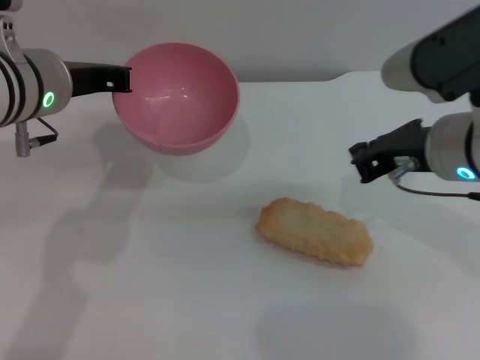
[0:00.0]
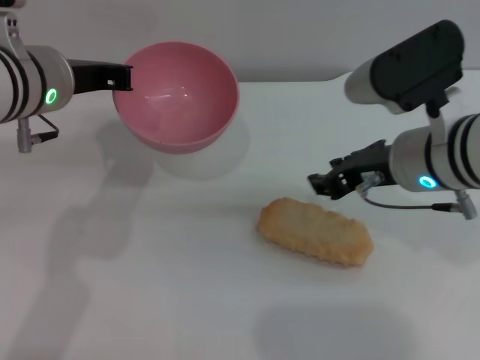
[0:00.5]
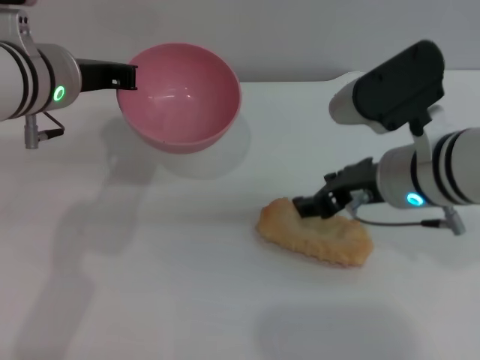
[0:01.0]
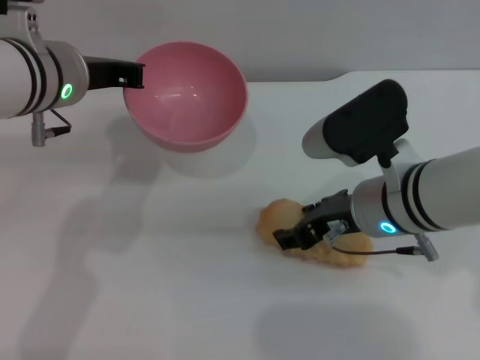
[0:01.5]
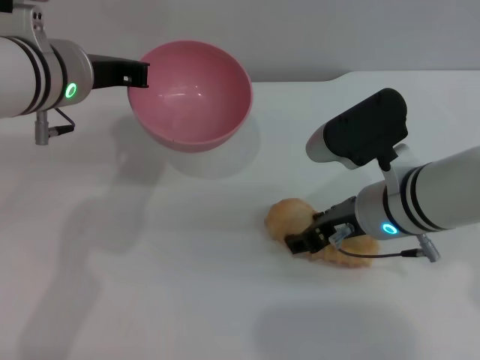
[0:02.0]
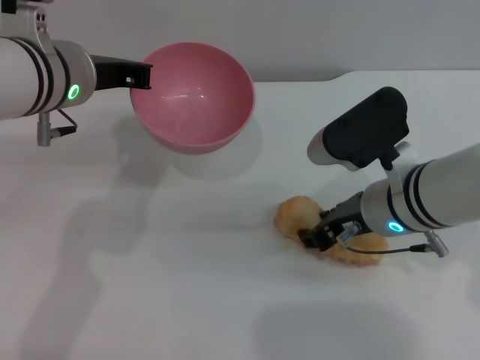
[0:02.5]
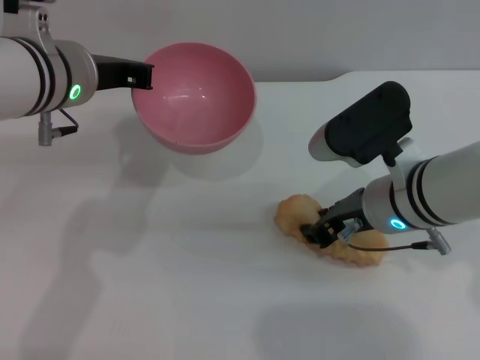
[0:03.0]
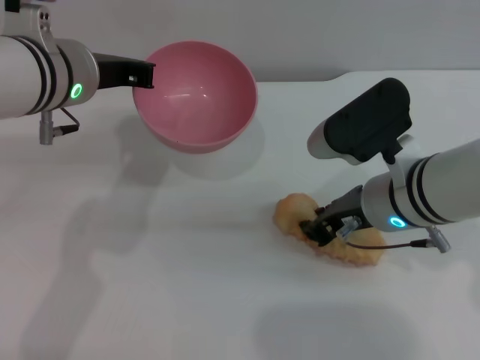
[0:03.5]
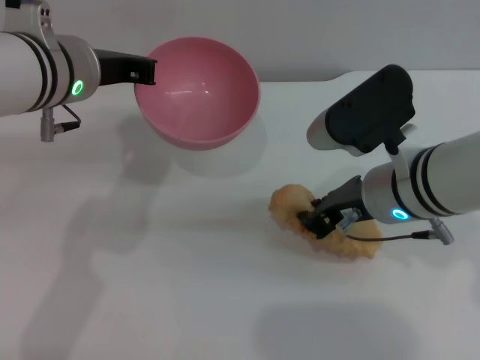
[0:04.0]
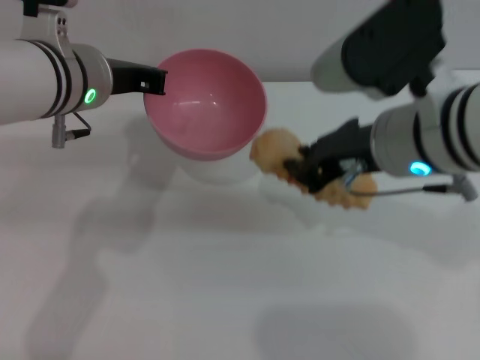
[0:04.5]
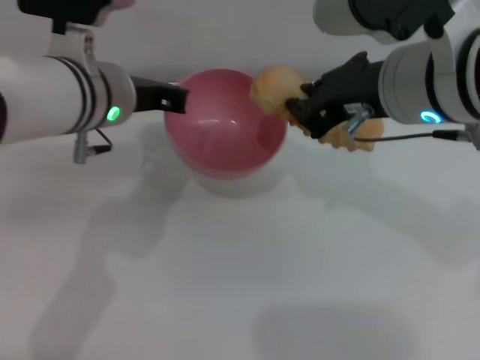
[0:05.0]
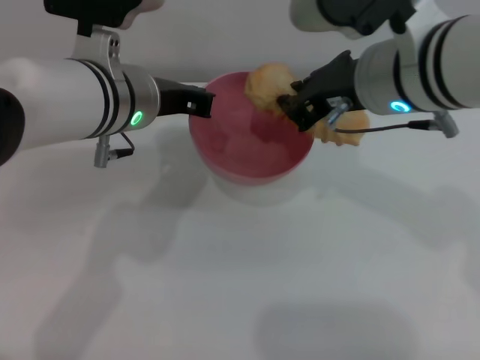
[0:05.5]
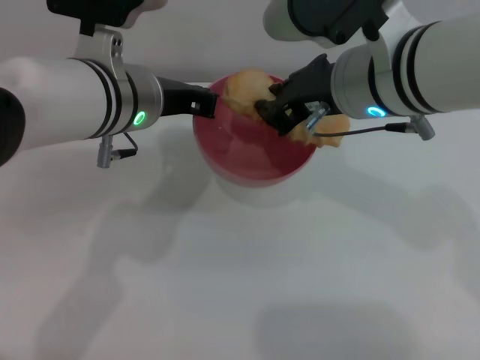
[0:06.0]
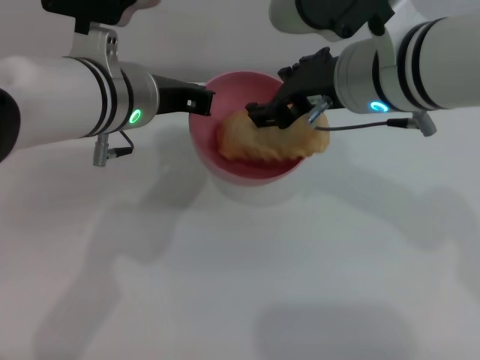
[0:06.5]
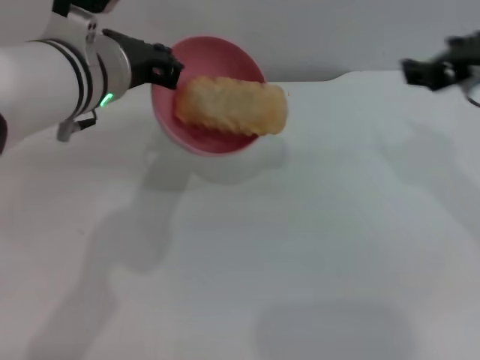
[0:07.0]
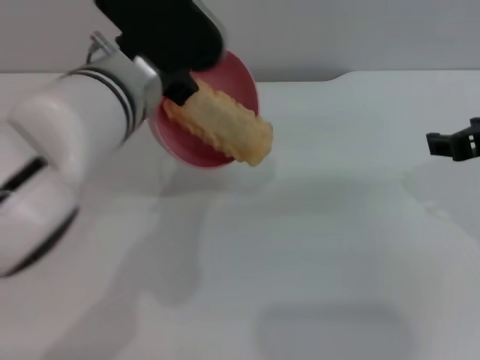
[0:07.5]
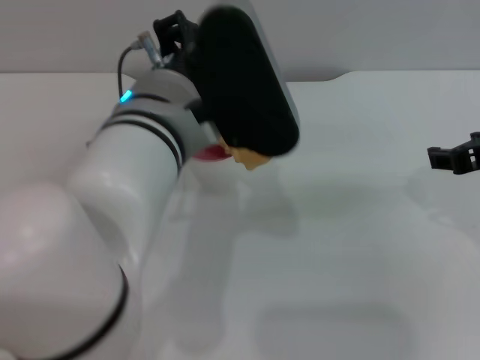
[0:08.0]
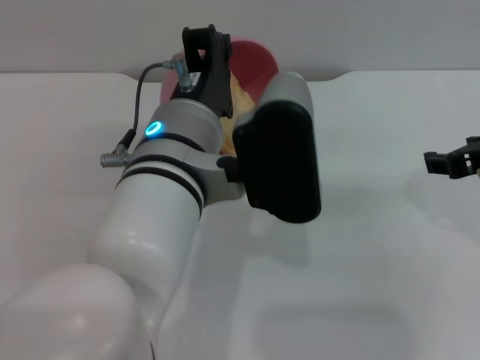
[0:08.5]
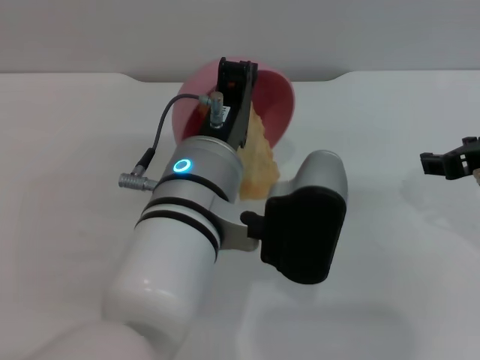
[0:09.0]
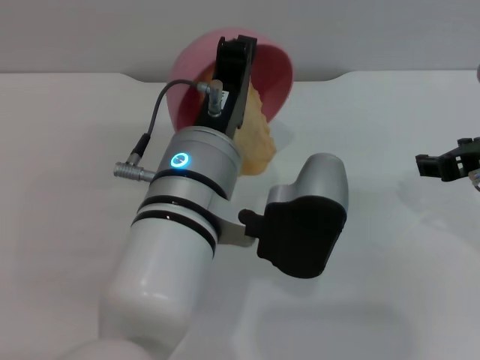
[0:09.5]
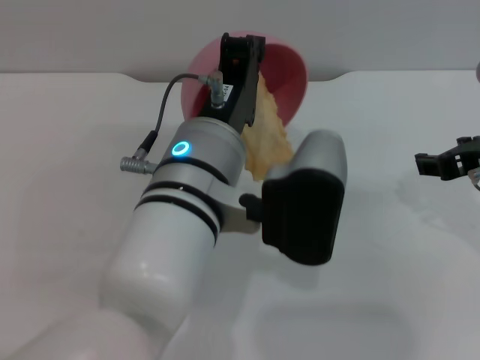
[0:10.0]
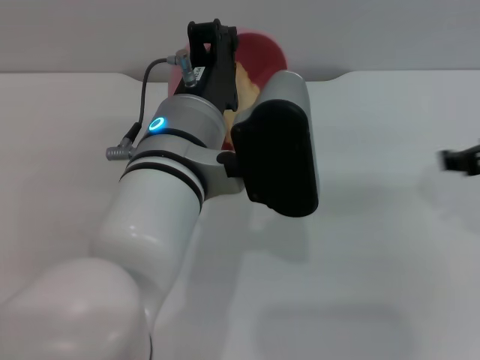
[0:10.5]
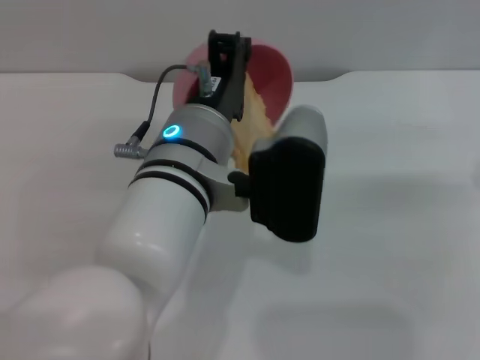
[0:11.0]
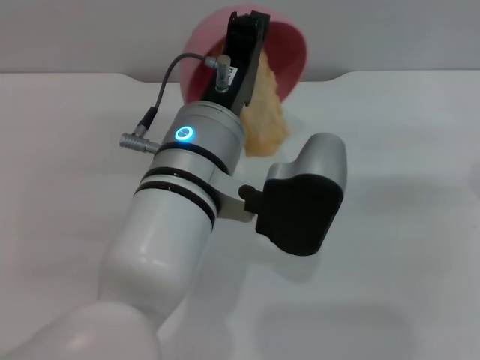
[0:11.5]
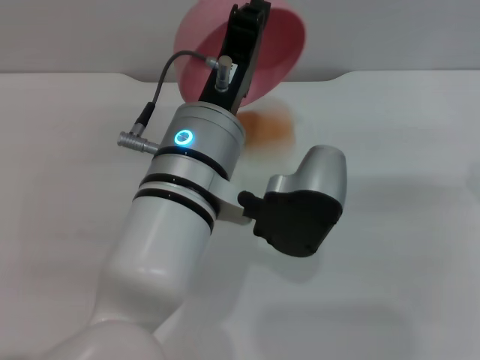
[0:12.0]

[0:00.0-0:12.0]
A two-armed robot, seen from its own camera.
Task of the whole recording: put the bread into the pink bowl and pour it out repeatedly.
Step, 0:00.0 to 0:04.5: Pick up the bread with the right gripper.
Step, 0:05.0 to 0:06.5: Place the bread into the bowl.
0:00.0 to 0:02.0: The right gripper heads downward, covering some 10 cm, and opens its fingers.
0:02.0 to 0:04.0: The right gripper closes.
0:04.0 to 0:06.0: The right gripper moves upward, about 10 cm. The left gripper ends up some 5 cm from where it was.
0:06.0 to 0:08.0: The left gripper is displaced backward by roughly 5 cm, while the right gripper travels to the right by about 15 cm, and opens its fingers.
0:08.0 to 0:10.0: The left gripper shifts by about 5 cm.
0:10.0 to 0:12.0: The right gripper goes some 5 cm to the right.

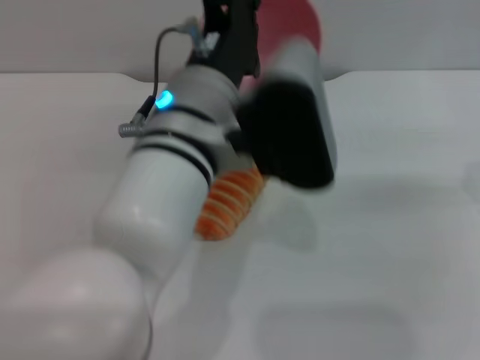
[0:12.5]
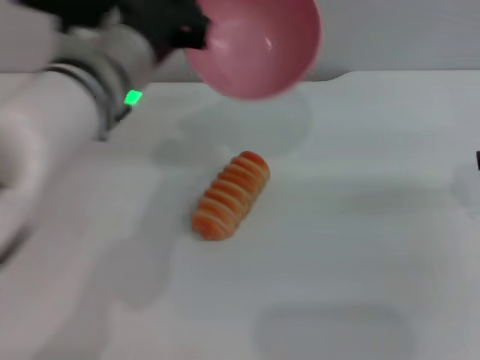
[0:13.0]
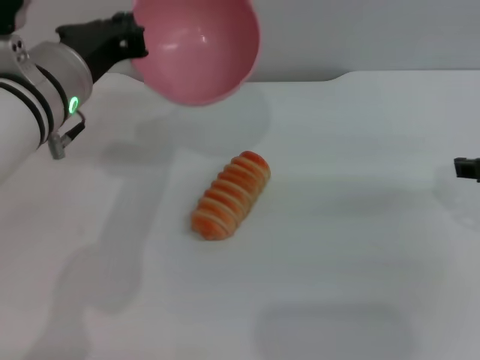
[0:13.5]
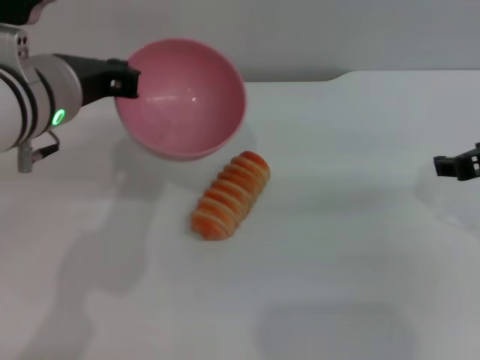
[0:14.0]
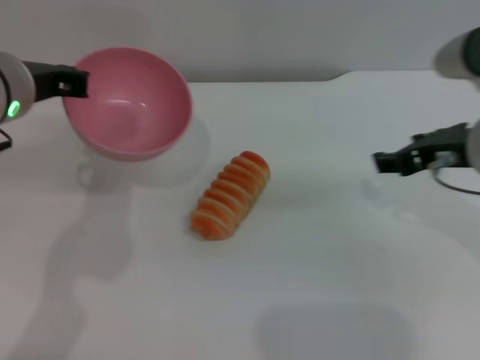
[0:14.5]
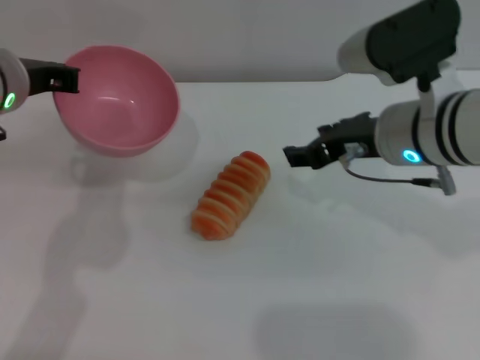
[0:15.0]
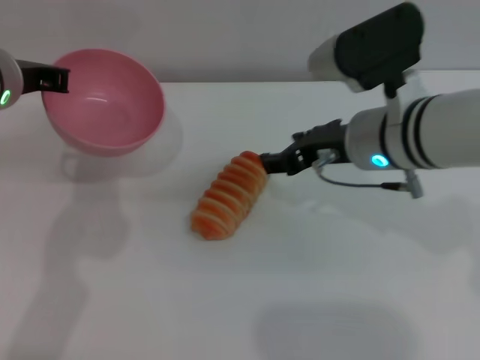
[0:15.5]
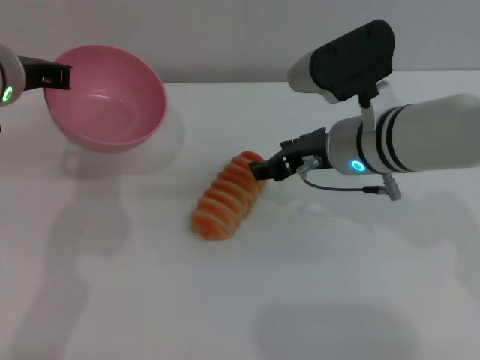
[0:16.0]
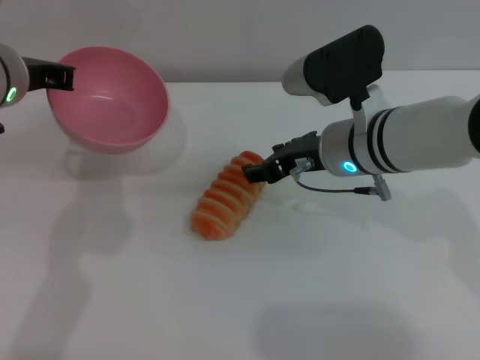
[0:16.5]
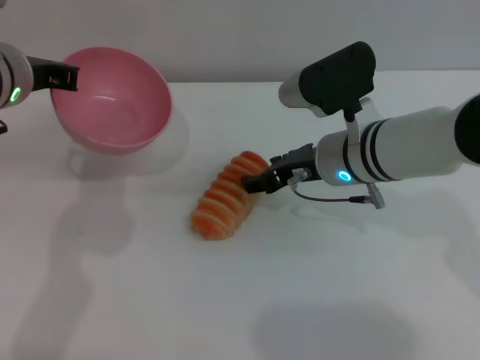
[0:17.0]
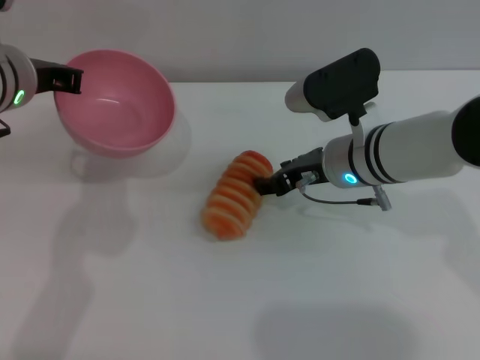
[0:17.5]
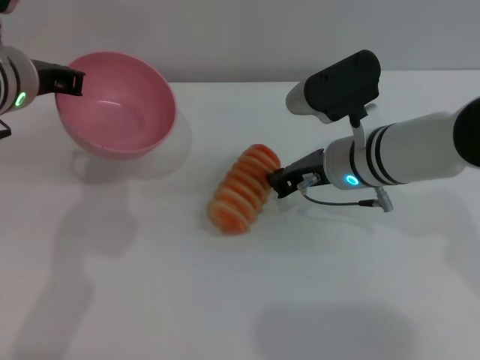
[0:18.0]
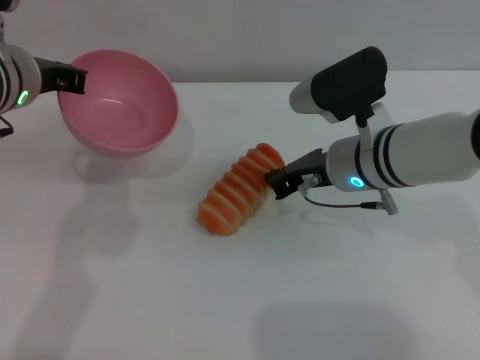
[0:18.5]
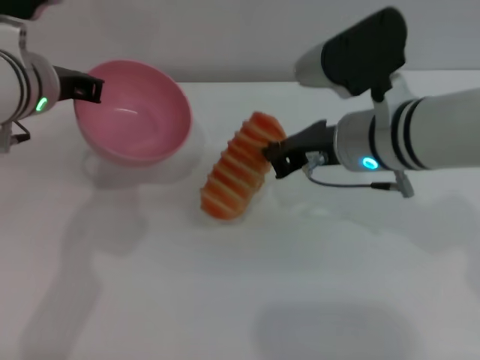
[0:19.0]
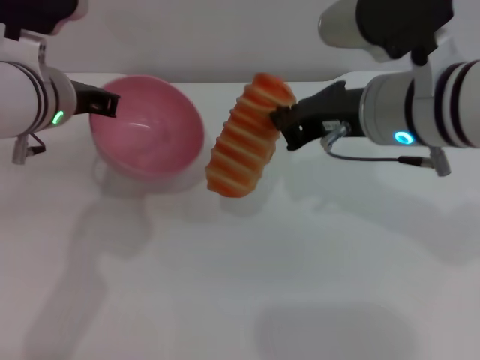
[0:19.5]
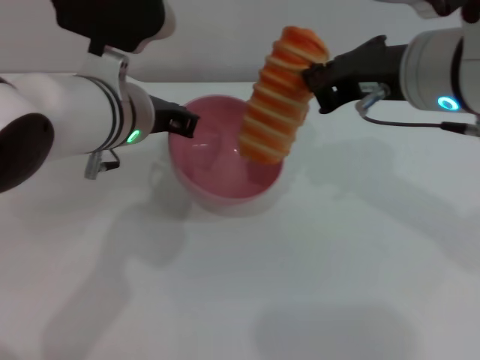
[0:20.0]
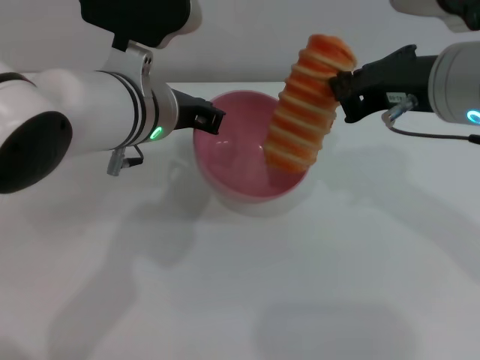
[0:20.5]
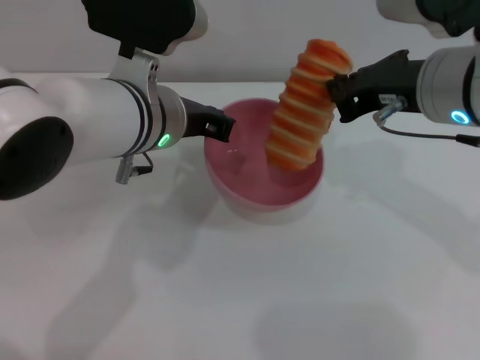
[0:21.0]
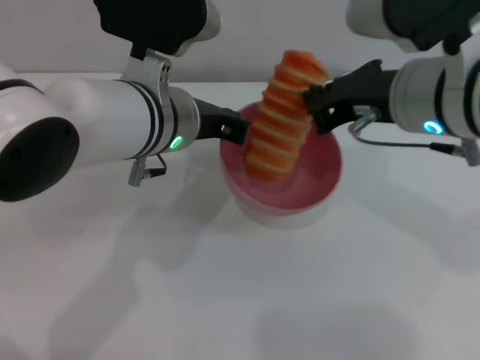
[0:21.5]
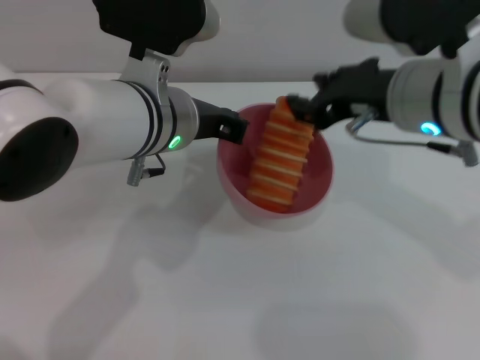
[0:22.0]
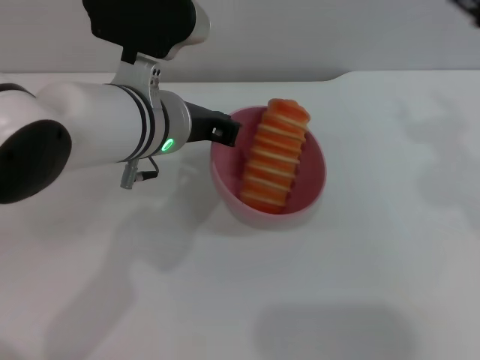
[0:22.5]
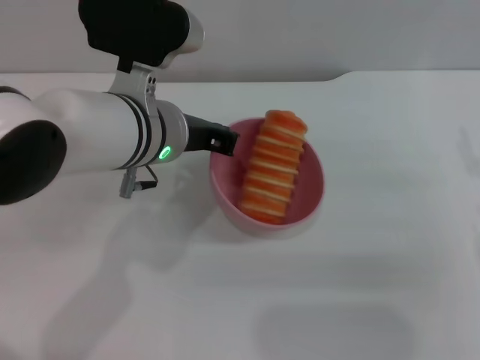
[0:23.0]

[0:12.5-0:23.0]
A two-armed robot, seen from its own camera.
Task of the whole recording: put the bread into the pink bowl and pour it out repeatedly.
Step, 0:13.0 to 0:19.0: Pick up the bread with the right gripper.
Step, 0:19.5 to 0:22.0: Place the bread into the bowl.
0:12.5 to 0:14.5: The right gripper heads to the left, covering approximately 10 cm. Meanwhile the left gripper heads to the left, covering some 15 cm.
0:14.5 to 0:16.5: The right gripper moves to the left and downward, approximately 10 cm.
0:16.5 to 0:19.0: The right gripper closes its fingers.
0:19.0 to 0:21.0: The right gripper is displaced upward by approximately 10 cm; the left gripper shifts about 10 cm to the right.
0:21.0 to 0:23.0: The right gripper heads to the right, downward and backward, covering some 20 cm, and opens its fingers.

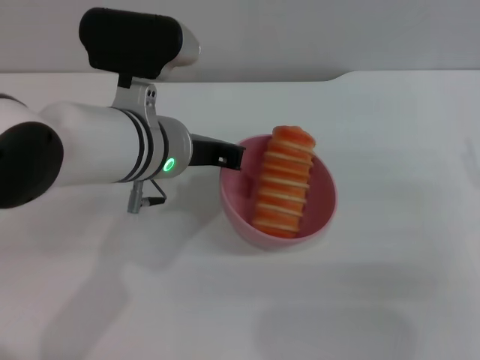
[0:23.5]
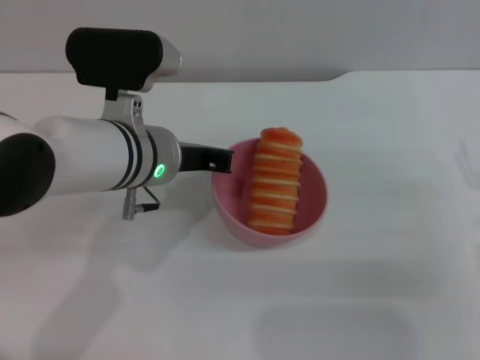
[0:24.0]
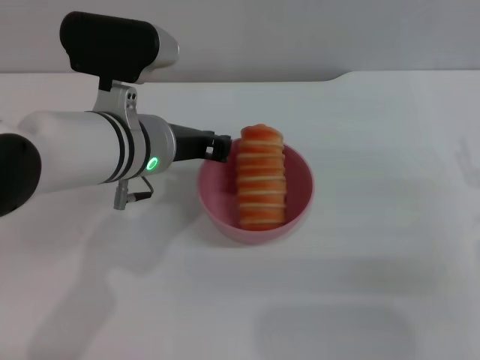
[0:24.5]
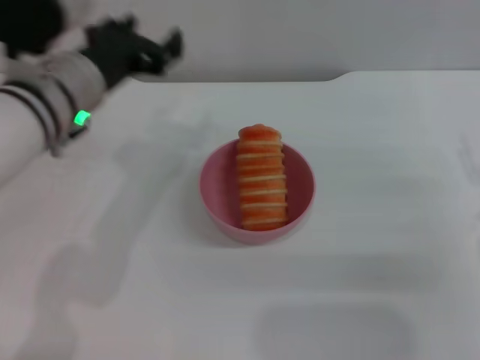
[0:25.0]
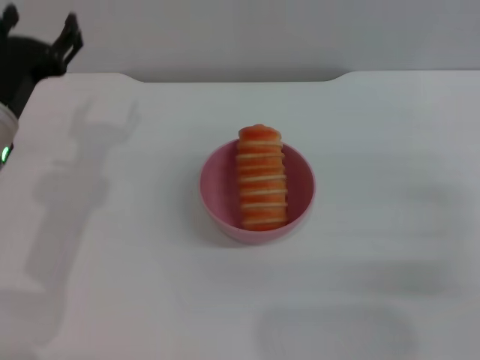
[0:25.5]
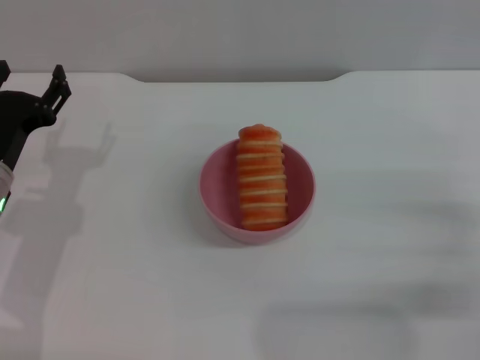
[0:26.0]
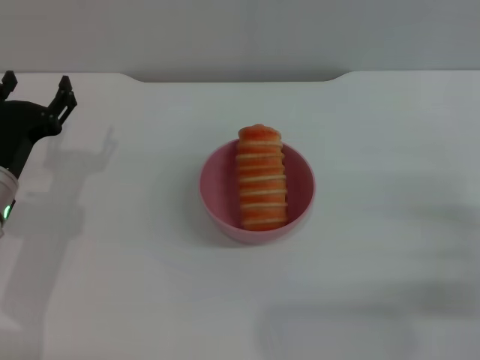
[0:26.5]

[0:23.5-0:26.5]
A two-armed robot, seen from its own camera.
Task of the whole recording: put the bread into the pink bowl and pour it out repeatedly.
Step, 0:23.5 to 0:25.0: Place the bowl on the table.
0:23.5 to 0:25.0: The left gripper shifts roughly 5 cm to the left, and opens.
0:25.0 to 0:26.5: The right gripper is displaced downward by approximately 5 cm. The left gripper travels downward and to the left by about 15 cm, and opens its fingers.
